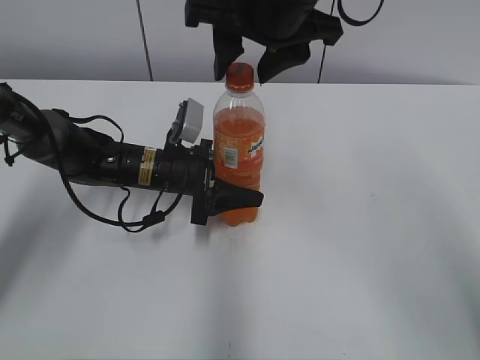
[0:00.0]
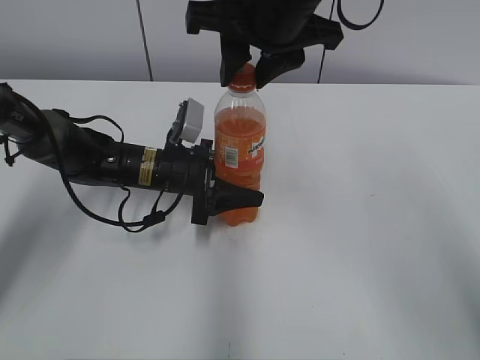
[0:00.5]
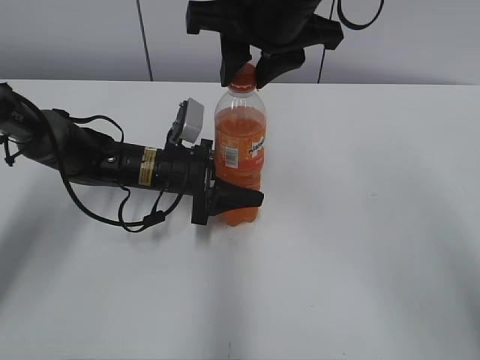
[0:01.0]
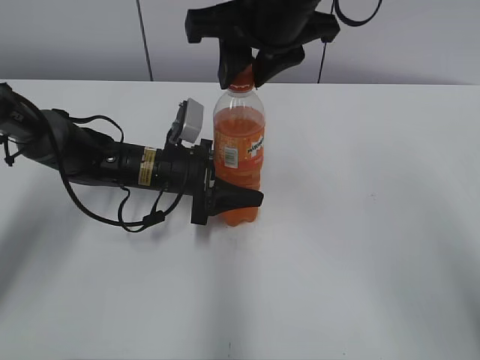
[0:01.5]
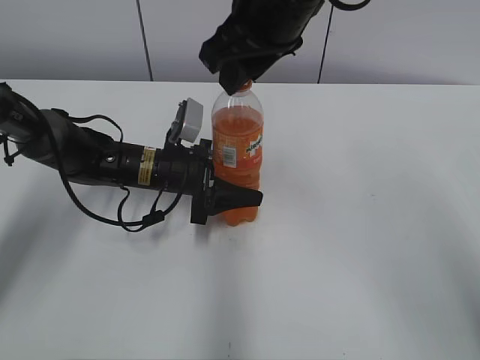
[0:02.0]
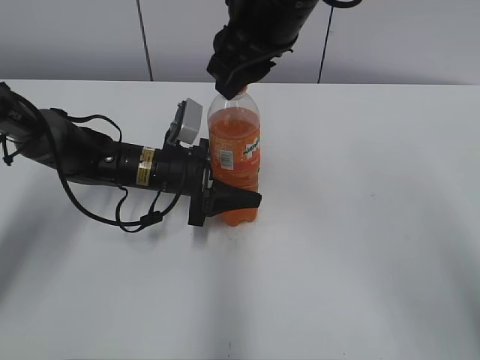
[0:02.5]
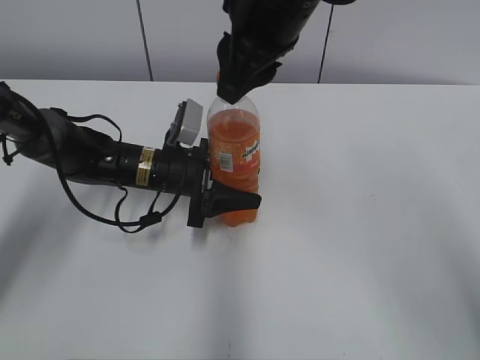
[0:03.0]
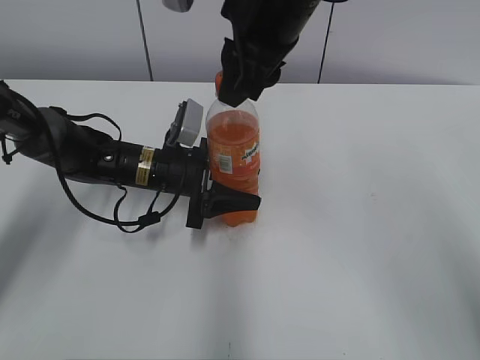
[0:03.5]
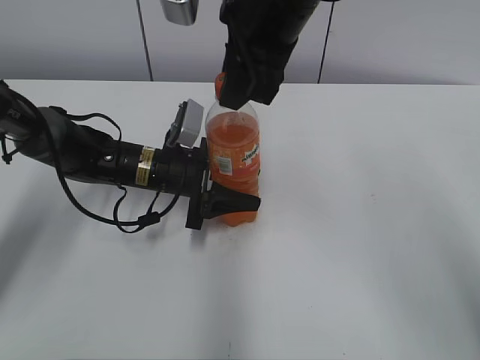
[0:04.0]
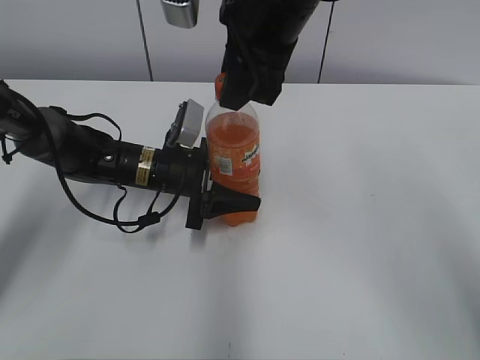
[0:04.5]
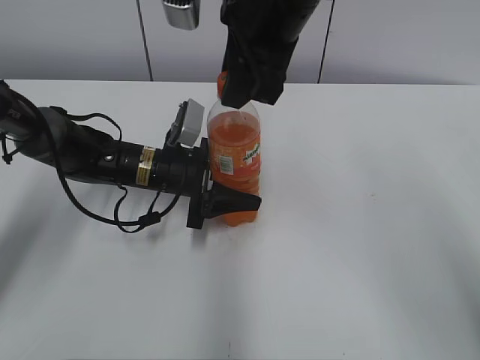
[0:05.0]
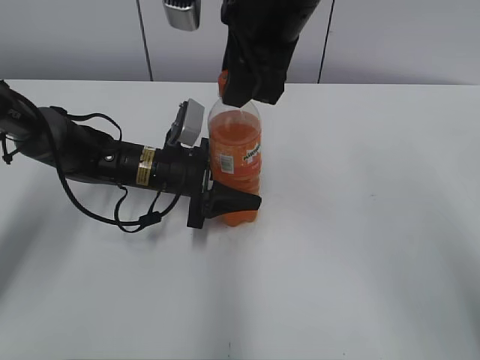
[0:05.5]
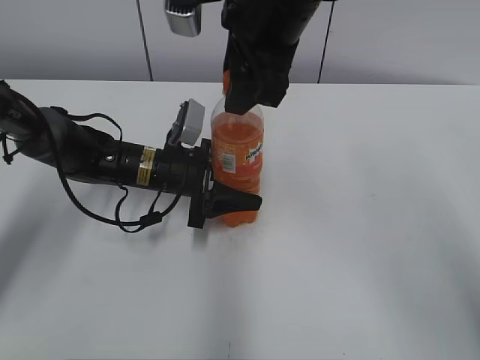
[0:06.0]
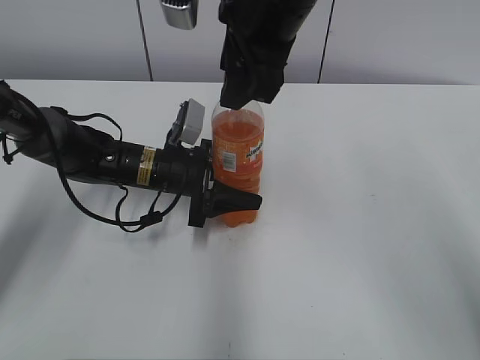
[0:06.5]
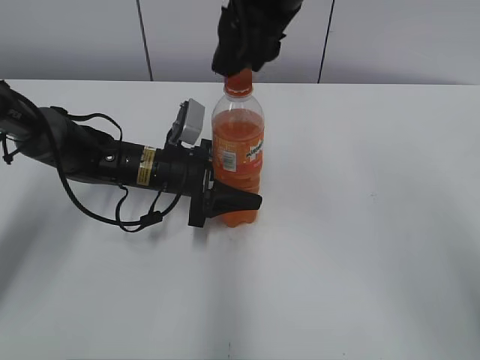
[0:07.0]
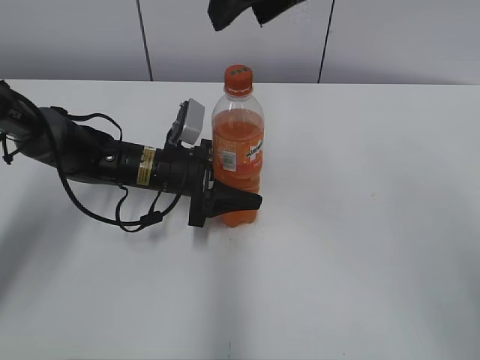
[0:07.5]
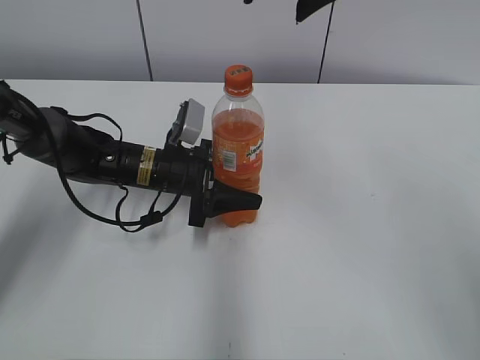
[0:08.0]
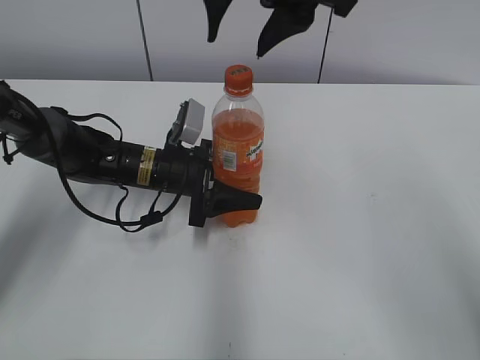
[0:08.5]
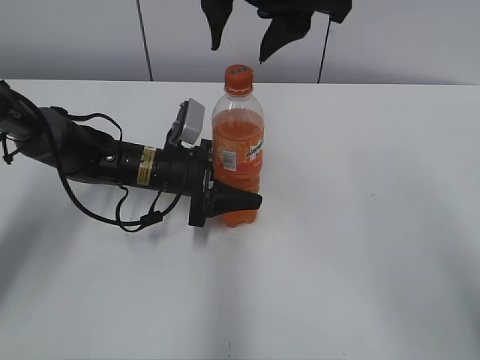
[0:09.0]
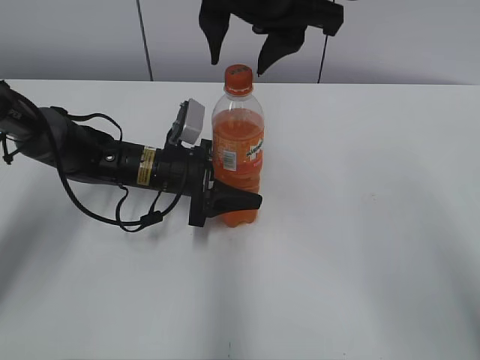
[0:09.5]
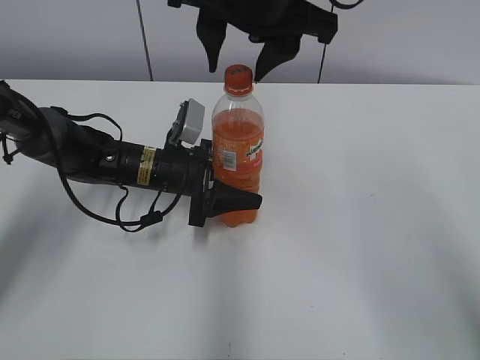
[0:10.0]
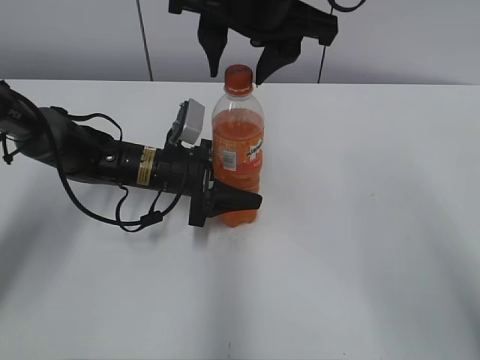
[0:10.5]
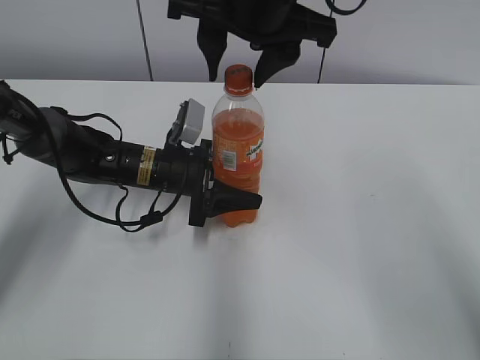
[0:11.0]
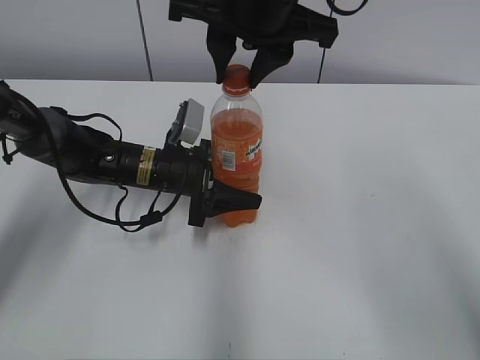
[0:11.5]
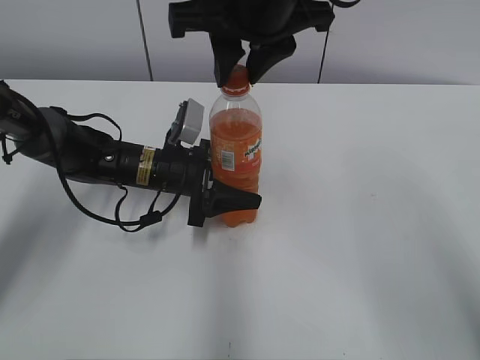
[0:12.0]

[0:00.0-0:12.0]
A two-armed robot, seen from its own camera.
0:00.0 to 0:02.0: The right gripper closes its fingers.
0:04.0 to 0:06.0: The right gripper opens its fingers.
0:06.0 to 0:08.0: The right gripper heads upward, covering roughly 10 cm.
0:08.0 to 0:10.0: The right gripper travels downward by roughly 5 cm.
0:10.0 to 0:12.0: The right gripper closes.

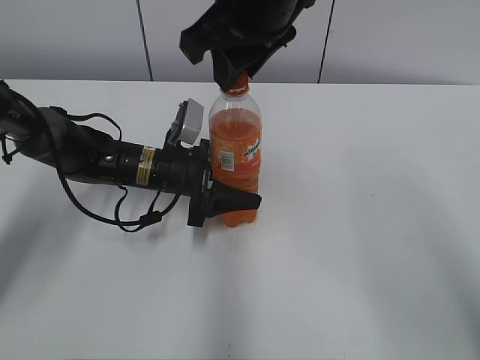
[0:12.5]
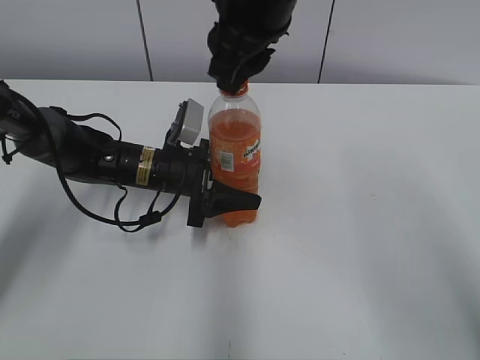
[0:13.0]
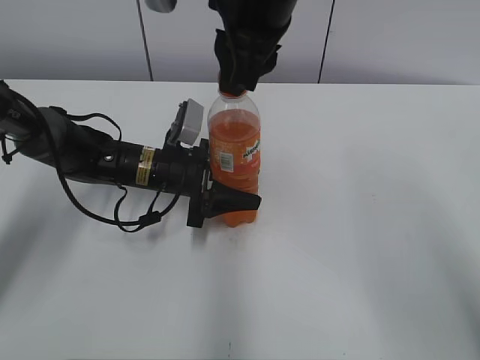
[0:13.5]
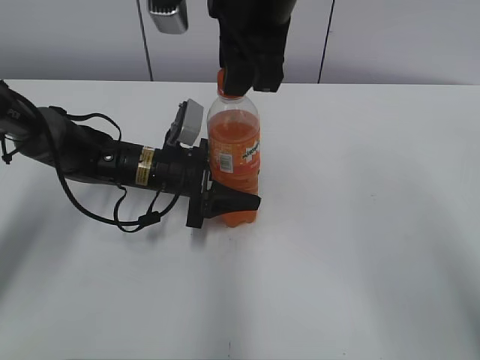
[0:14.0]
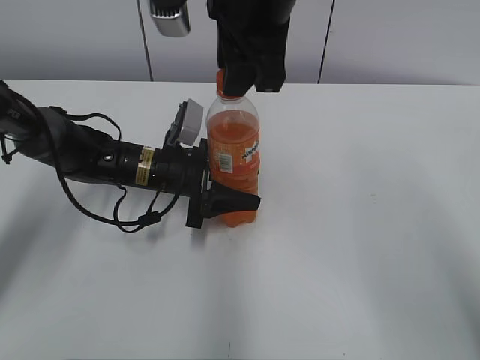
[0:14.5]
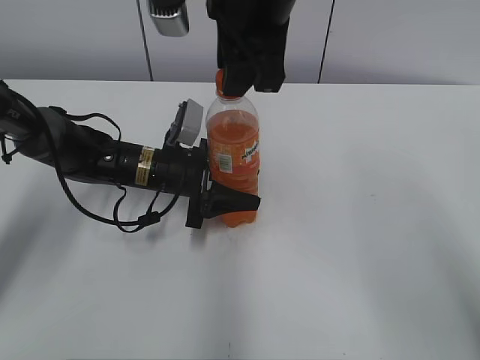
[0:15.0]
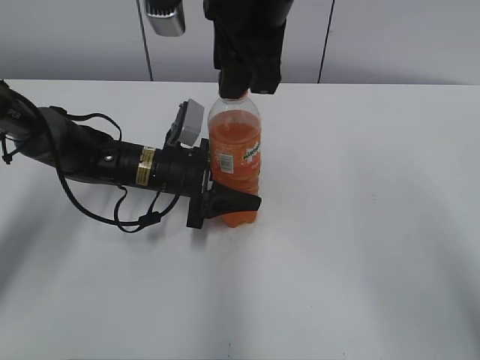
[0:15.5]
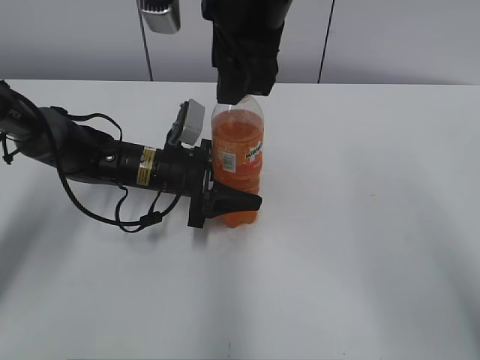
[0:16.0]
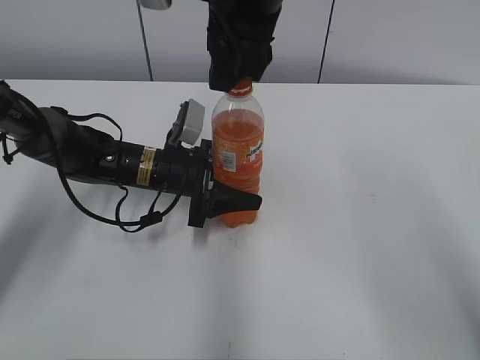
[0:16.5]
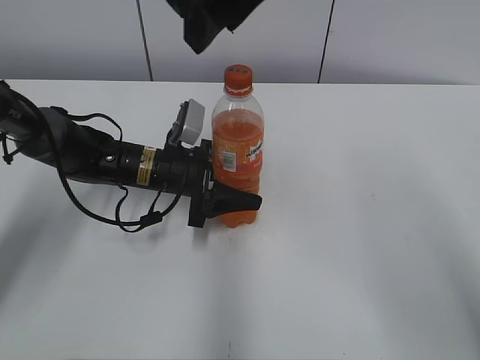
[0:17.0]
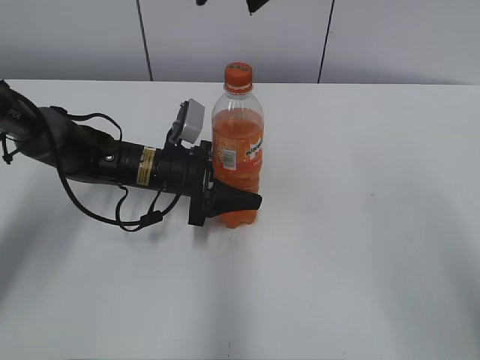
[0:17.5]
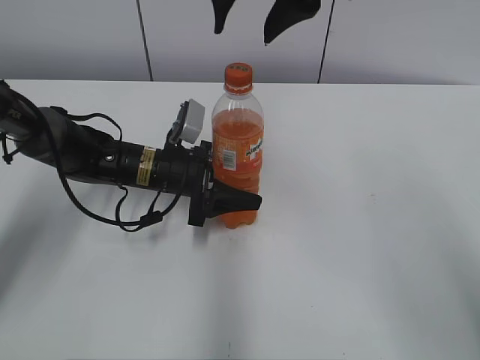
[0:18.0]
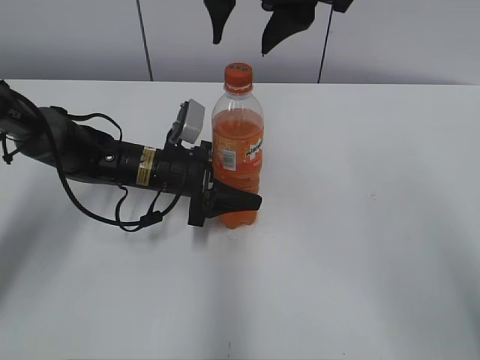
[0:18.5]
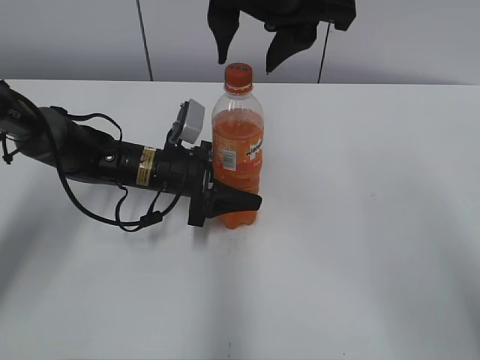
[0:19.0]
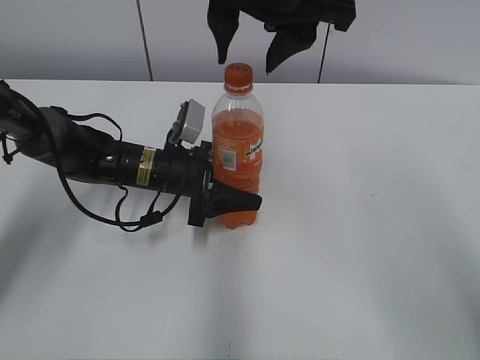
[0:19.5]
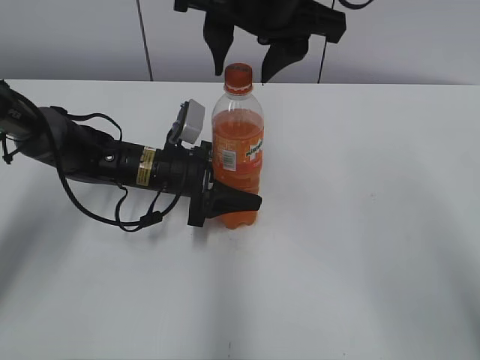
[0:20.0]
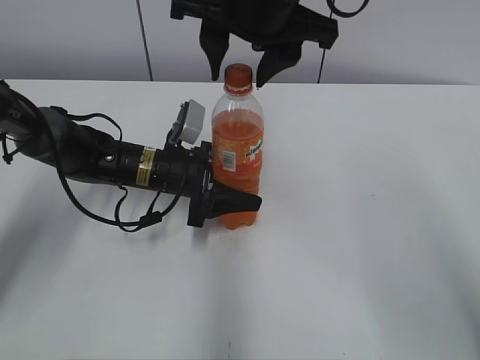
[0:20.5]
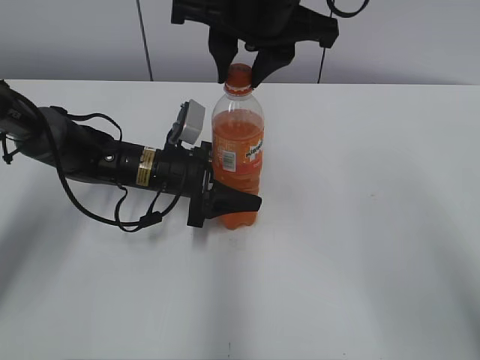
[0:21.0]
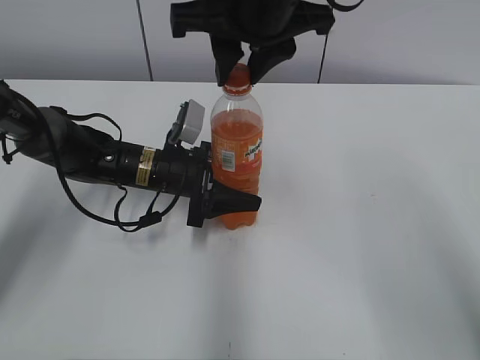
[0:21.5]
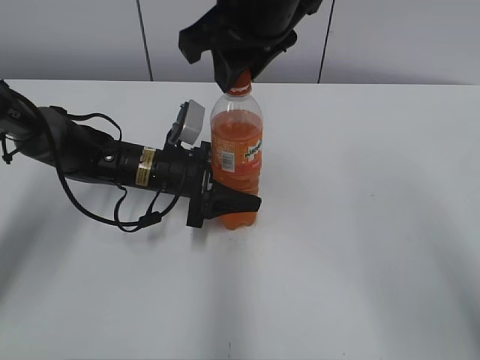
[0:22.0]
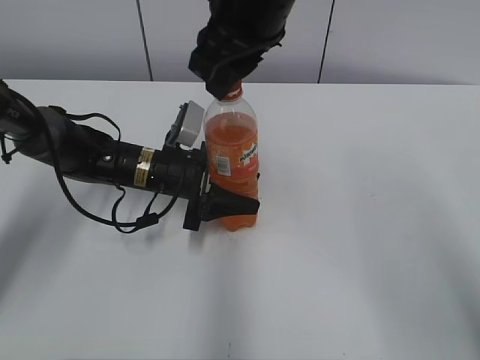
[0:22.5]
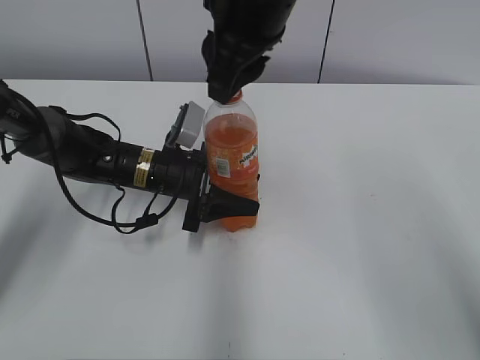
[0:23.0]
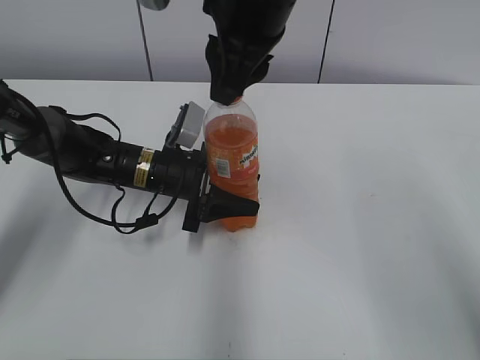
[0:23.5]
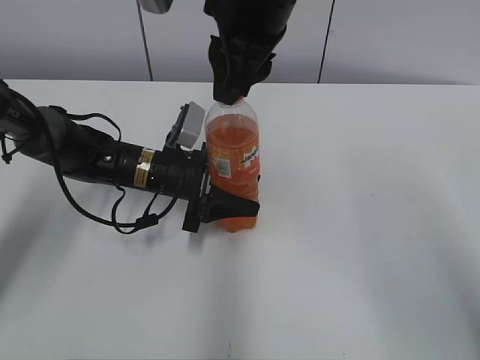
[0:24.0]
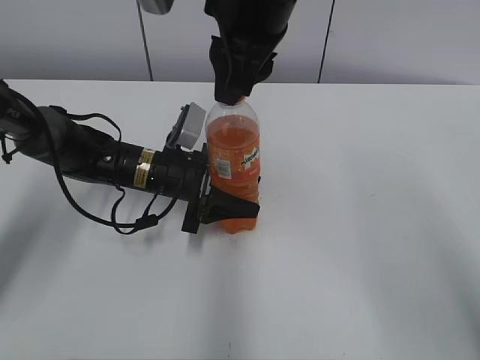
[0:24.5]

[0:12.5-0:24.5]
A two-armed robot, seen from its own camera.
0:14.5 to 0:16.5: The right gripper opens.
0:18.5 to 0:20.5: There are only small adjustments of the grippers.
0:20.5 to 0:22.5: The right gripper closes up.

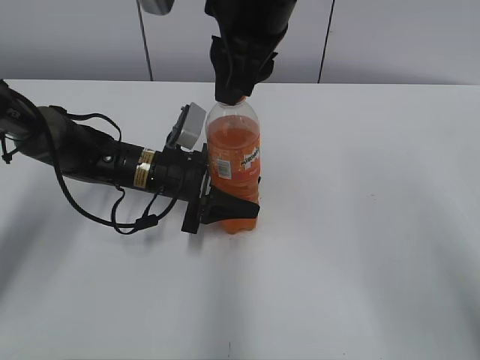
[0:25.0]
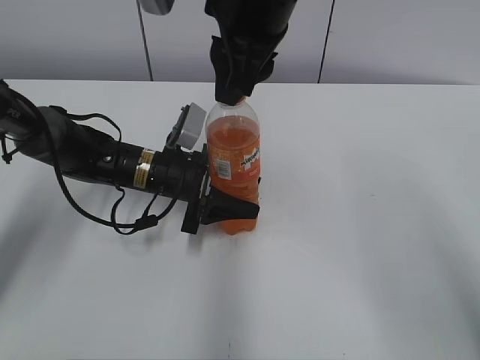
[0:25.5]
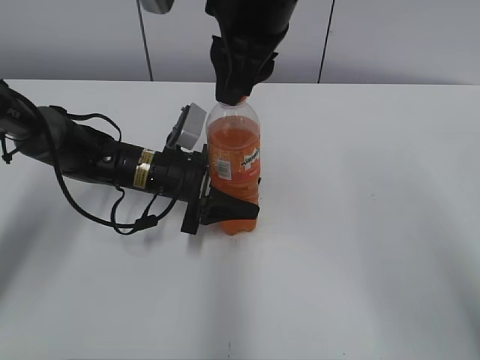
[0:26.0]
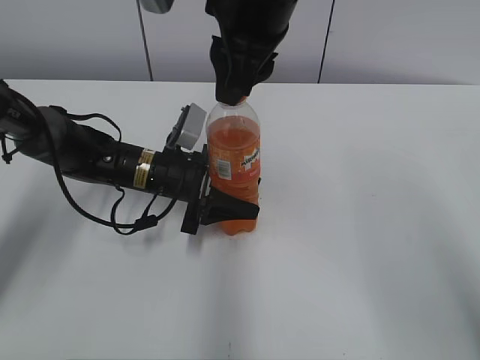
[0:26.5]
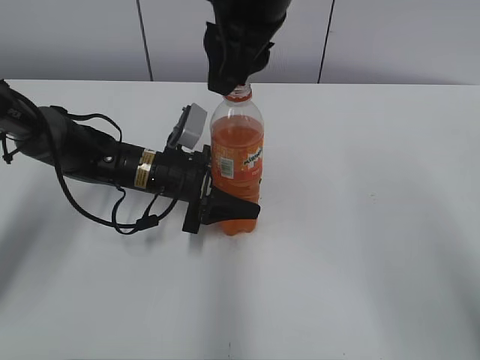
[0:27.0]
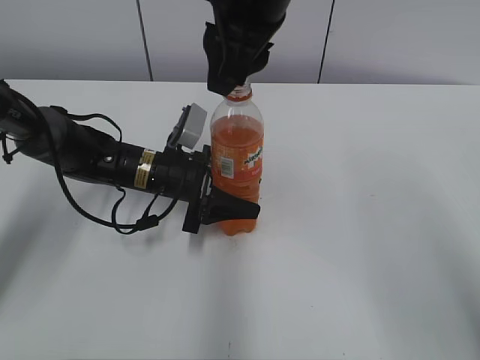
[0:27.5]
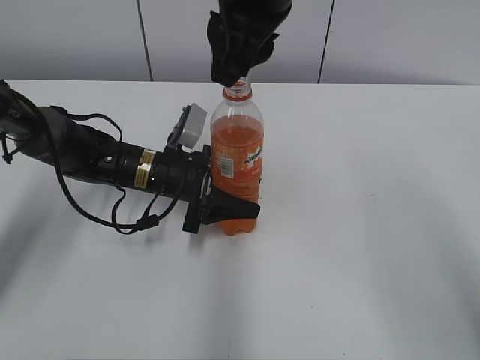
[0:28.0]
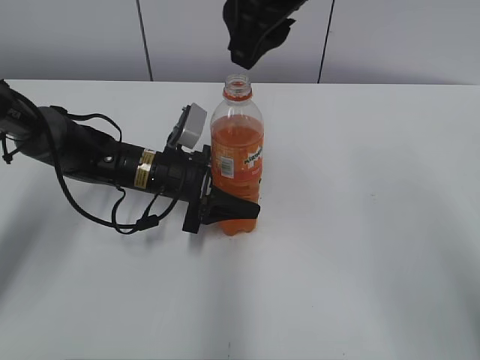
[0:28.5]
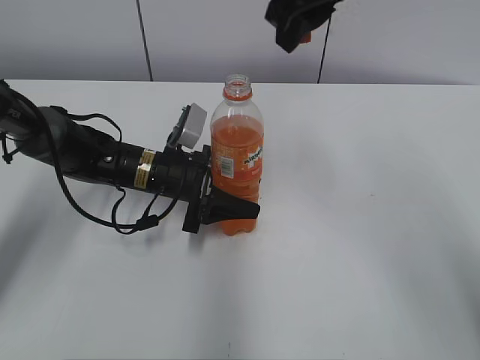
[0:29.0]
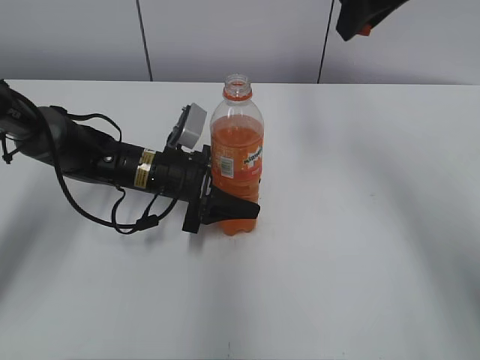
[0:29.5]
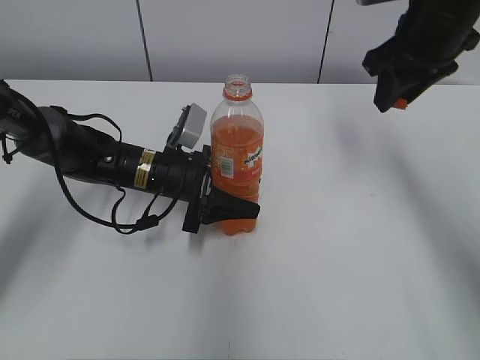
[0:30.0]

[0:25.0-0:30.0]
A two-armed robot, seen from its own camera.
0:25.0 to 0:27.5: The two grippers keep their place.
0:27.5 to 0:30.0: The right gripper shifts roughly 20 cm to the right and forward.
